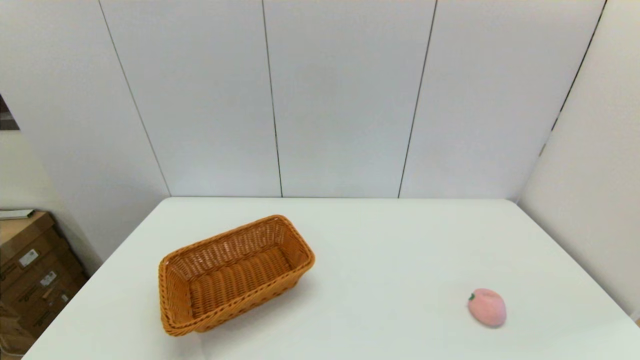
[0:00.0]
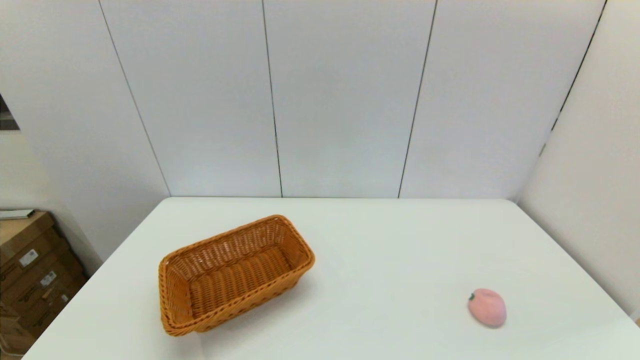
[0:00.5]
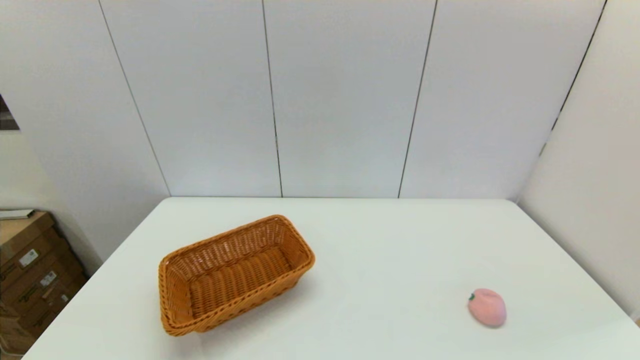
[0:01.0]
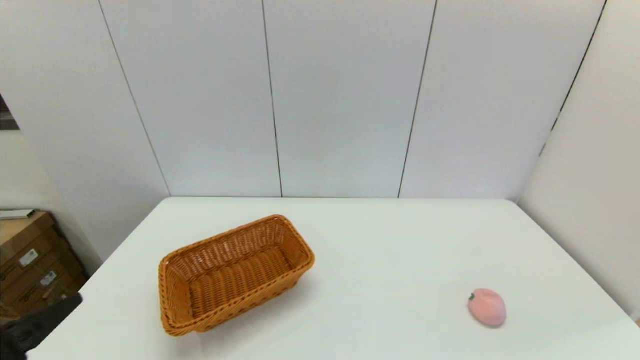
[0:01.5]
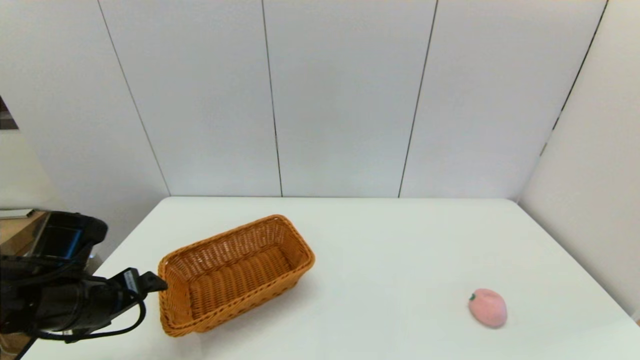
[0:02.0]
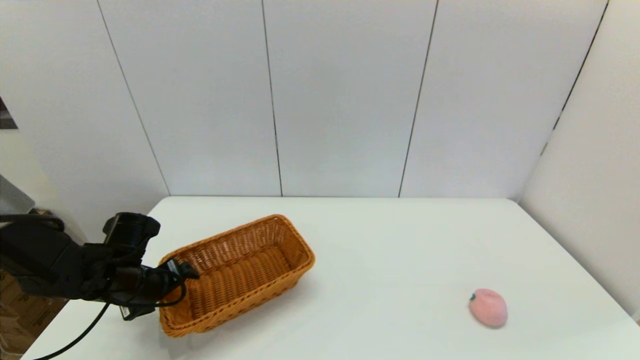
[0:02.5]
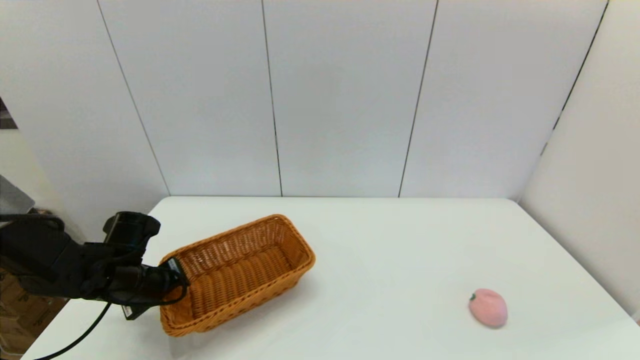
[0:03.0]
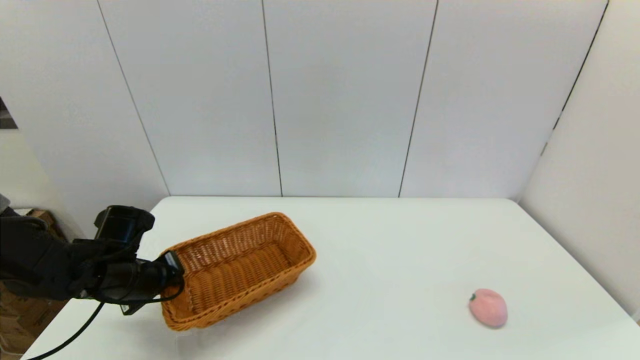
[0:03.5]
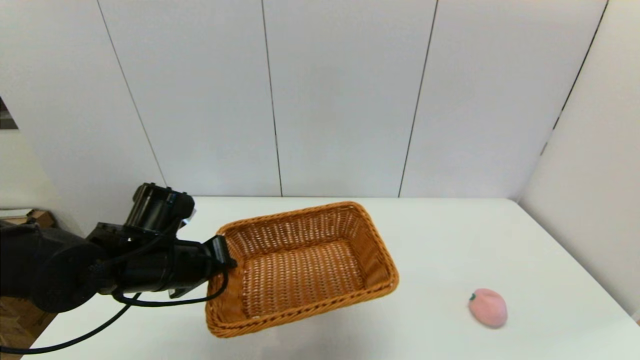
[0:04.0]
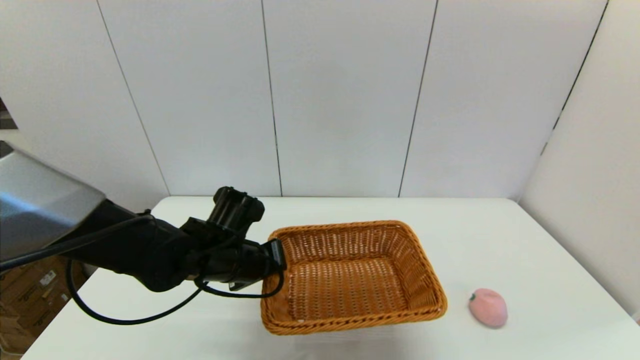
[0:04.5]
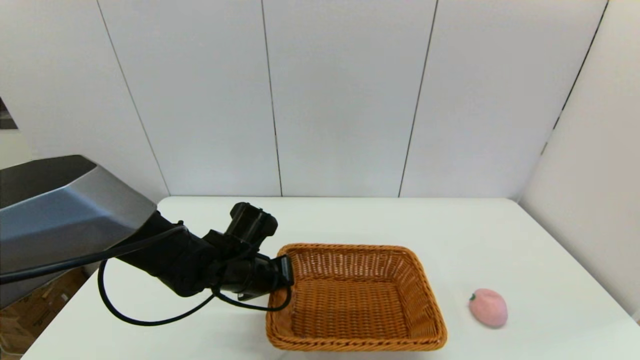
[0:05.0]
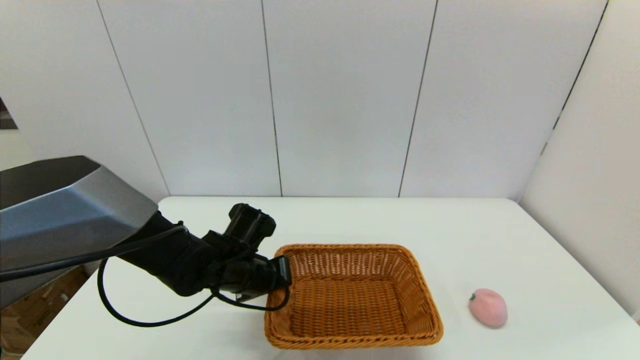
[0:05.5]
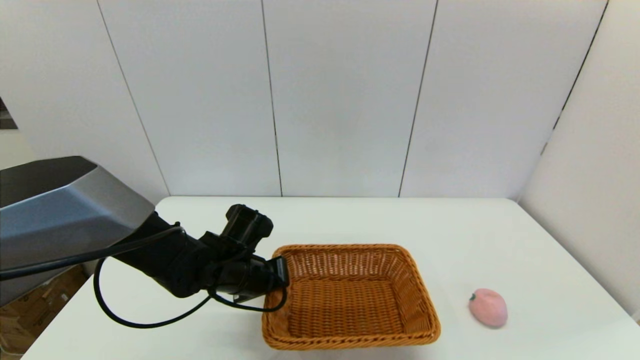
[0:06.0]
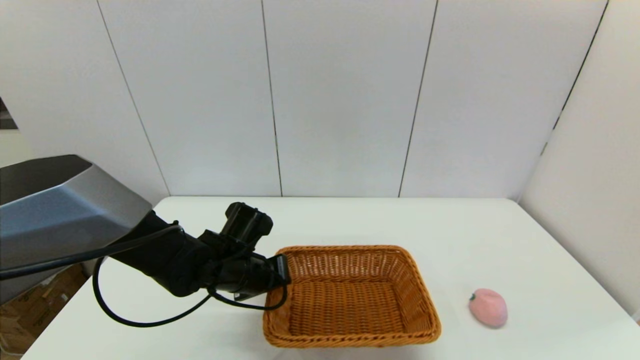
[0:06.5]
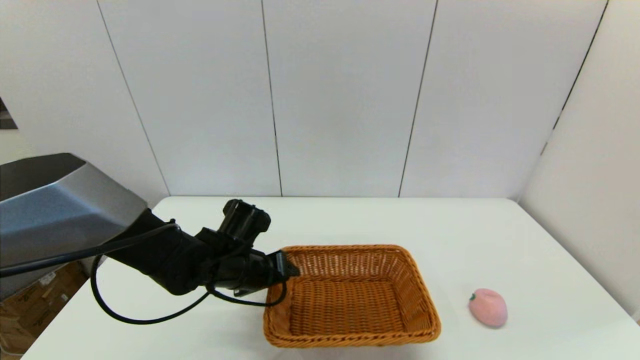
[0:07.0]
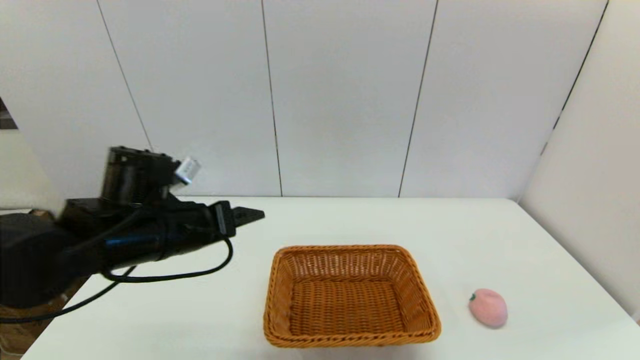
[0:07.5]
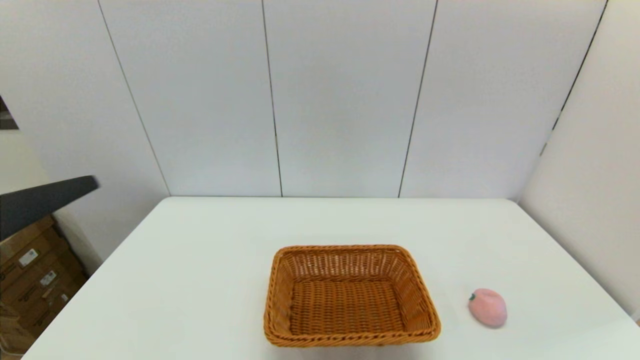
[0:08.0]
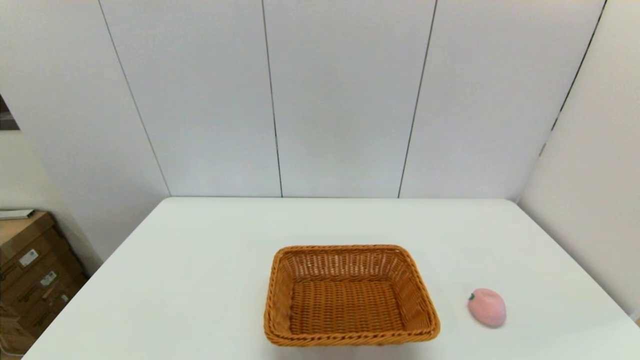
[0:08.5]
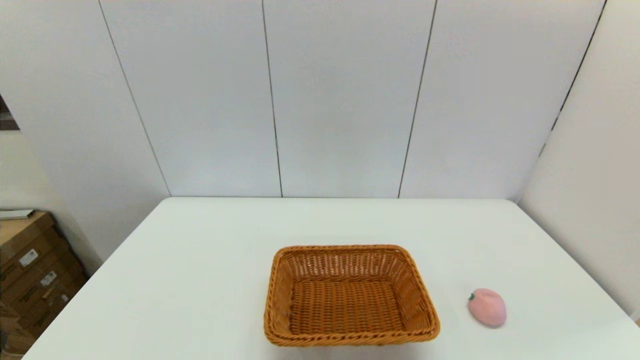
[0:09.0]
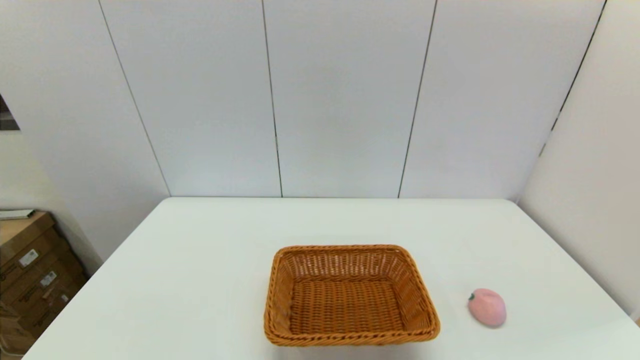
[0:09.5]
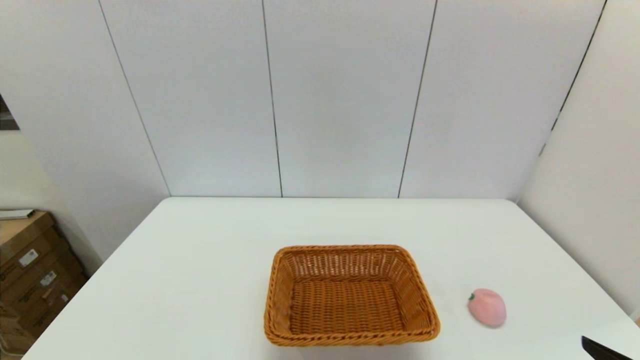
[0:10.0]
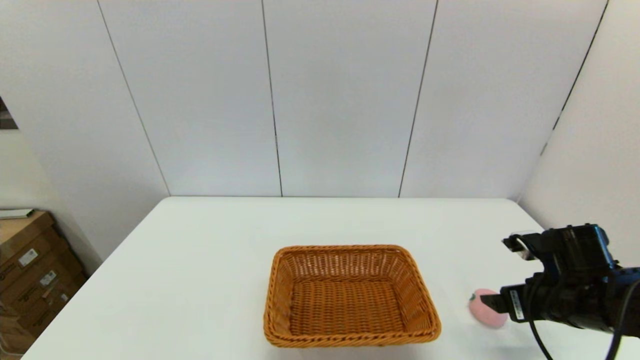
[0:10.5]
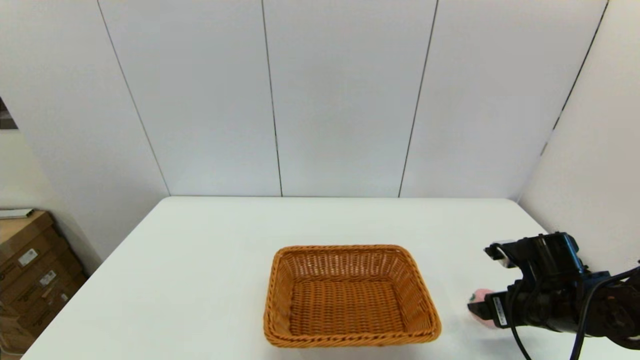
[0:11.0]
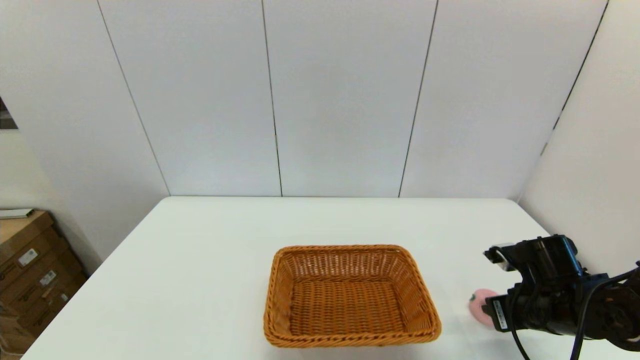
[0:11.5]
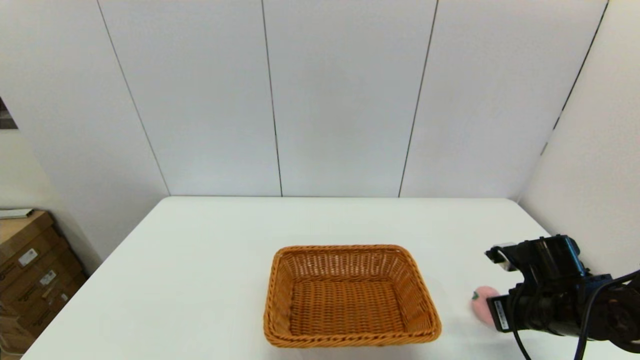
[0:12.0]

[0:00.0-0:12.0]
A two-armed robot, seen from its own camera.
Step, 0:00.0 to 0:03.0: Grasp the light basket with the left gripper.
Step, 0:03.5 to 0:06.5: Place the light basket on the middle of the table with the left gripper.
Step, 0:07.0 to 0:11.5: Grasp the peach with the right gripper.
0:00.0 to 0:02.0: The left gripper moves forward, some 25 cm.
0:02.0 to 0:04.0: The left gripper is displaced to the right by roughly 10 cm, and closes.
0:04.0 to 0:06.0: The left gripper shifts approximately 10 cm downward and to the right.
0:06.0 to 0:08.0: The left gripper goes roughly 35 cm backward, upward and to the left, and opens.
0:08.0 to 0:10.0: The left gripper moves downward and backward, approximately 20 cm.
0:10.0 to 0:12.0: The right gripper is displaced forward and downward by roughly 20 cm, and closes its fingers.

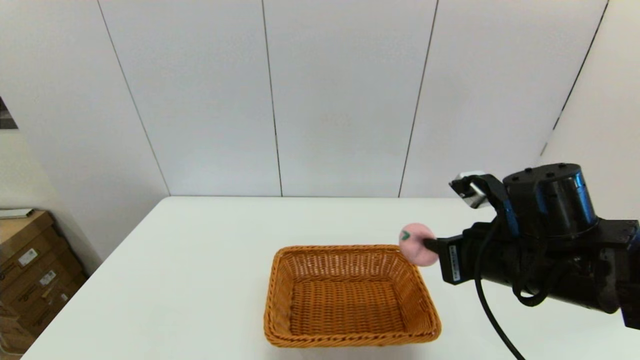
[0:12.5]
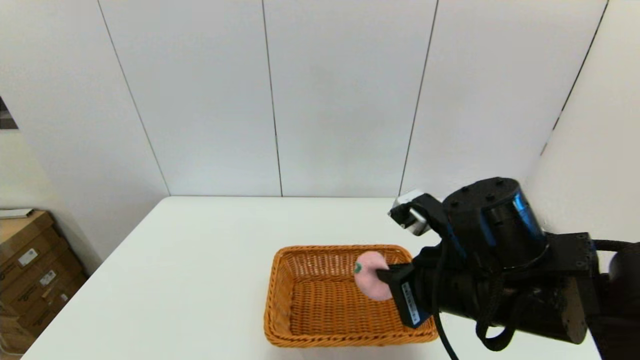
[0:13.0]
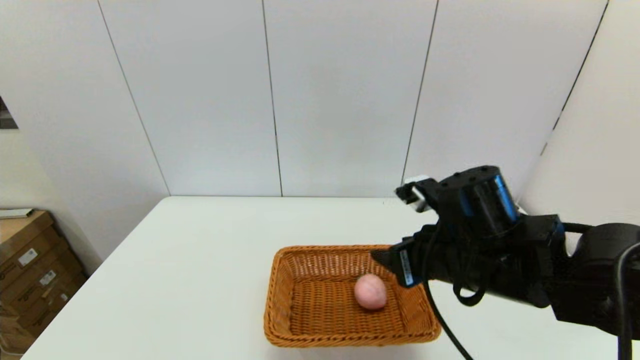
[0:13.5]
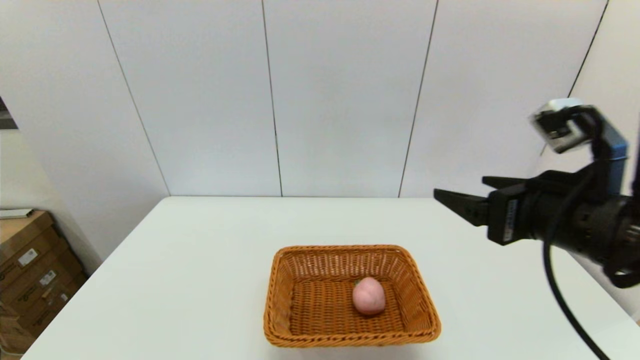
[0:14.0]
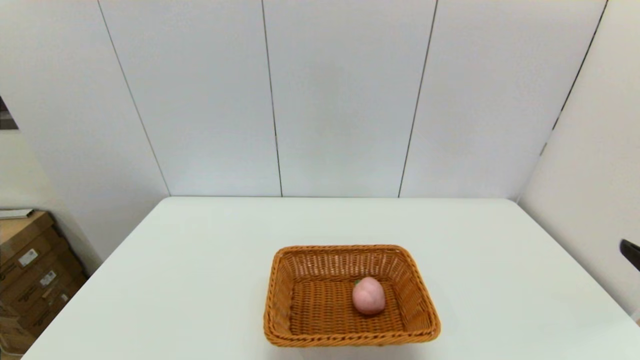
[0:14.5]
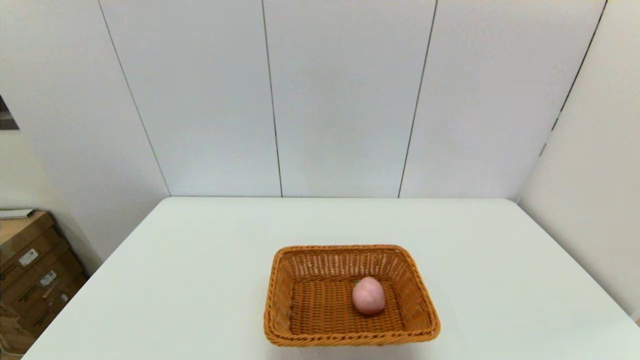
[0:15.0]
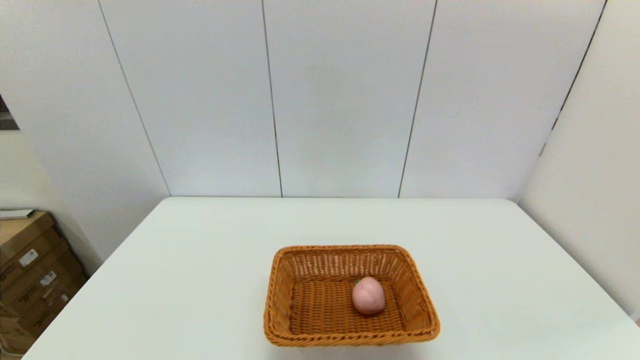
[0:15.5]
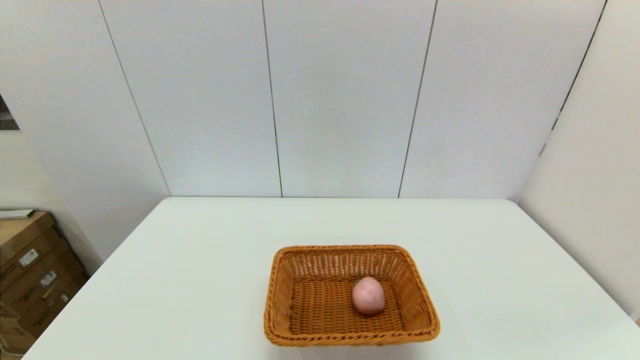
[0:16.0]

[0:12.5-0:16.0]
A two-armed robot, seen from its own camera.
0:12.5 to 0:14.5: The right gripper is displaced backward and to the right by about 20 cm, and opens.

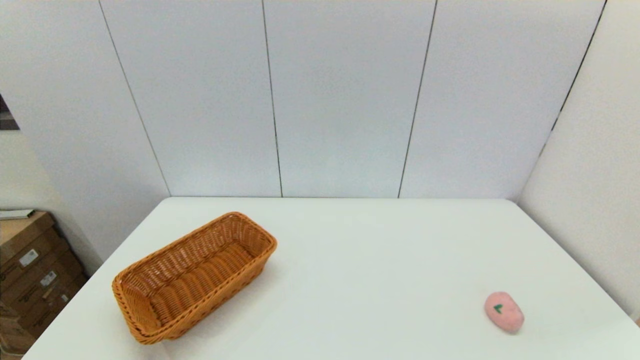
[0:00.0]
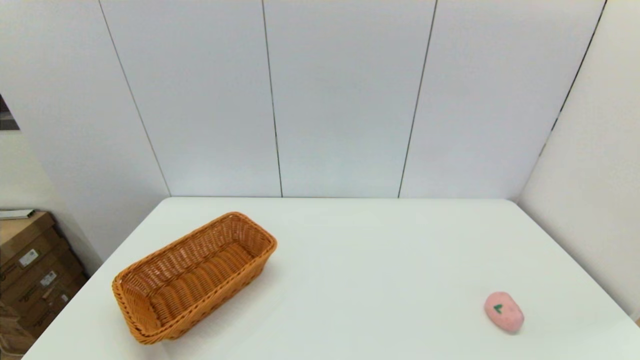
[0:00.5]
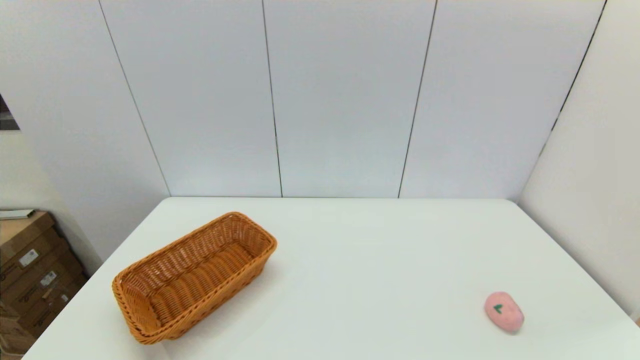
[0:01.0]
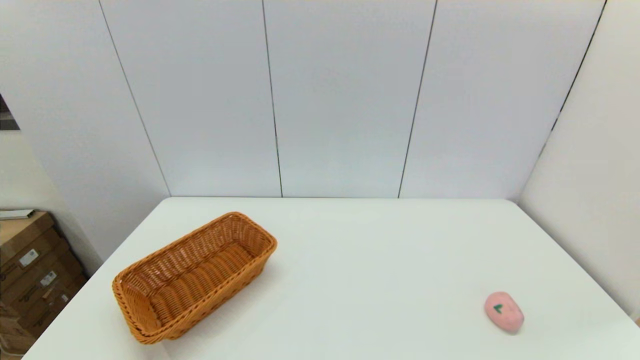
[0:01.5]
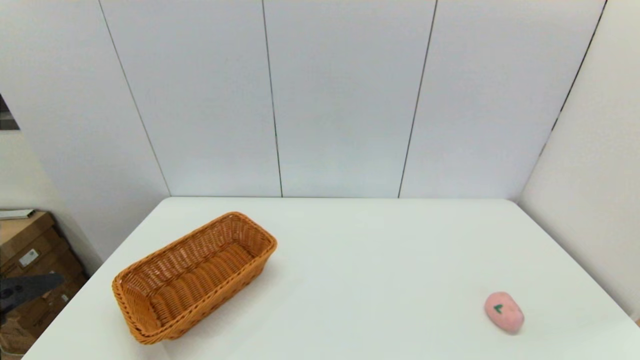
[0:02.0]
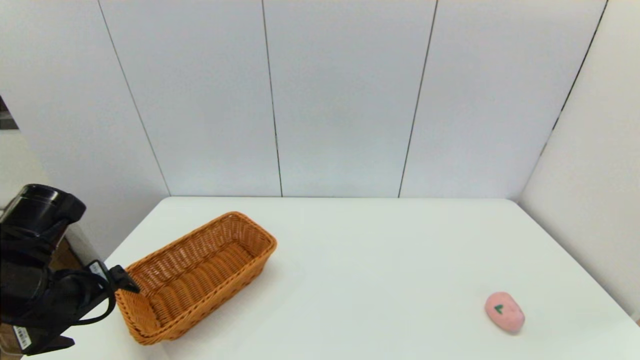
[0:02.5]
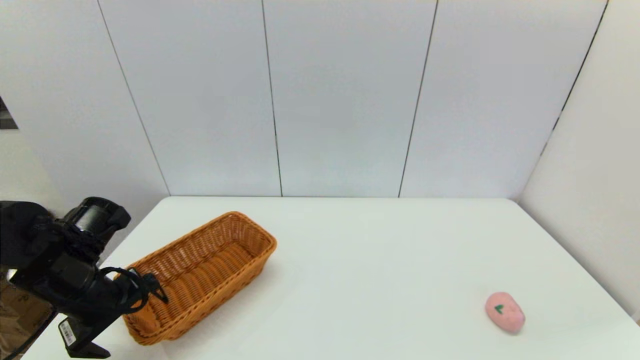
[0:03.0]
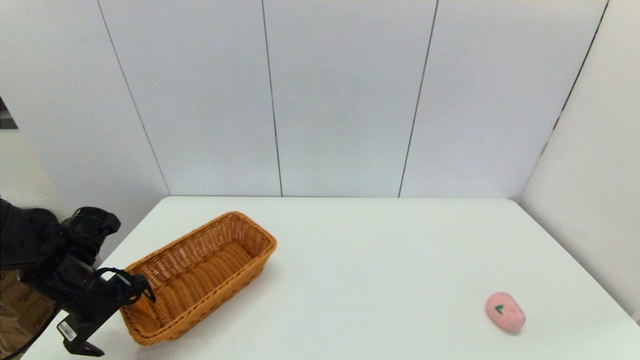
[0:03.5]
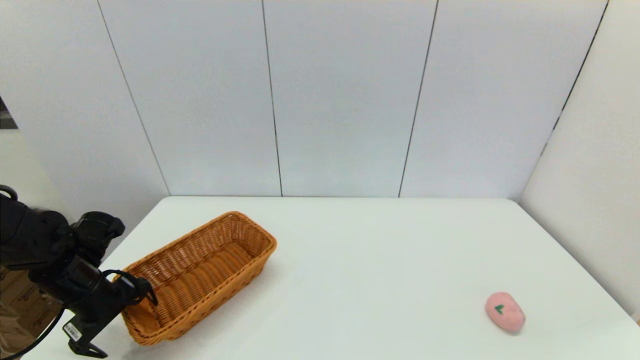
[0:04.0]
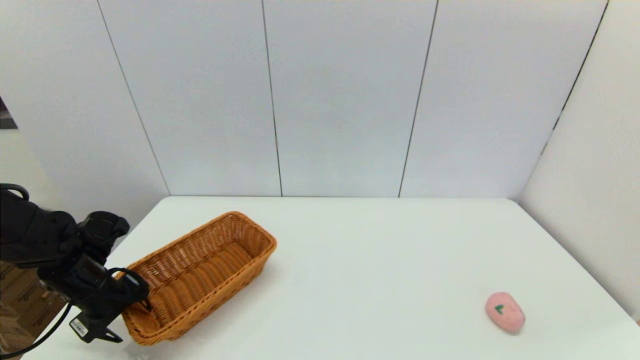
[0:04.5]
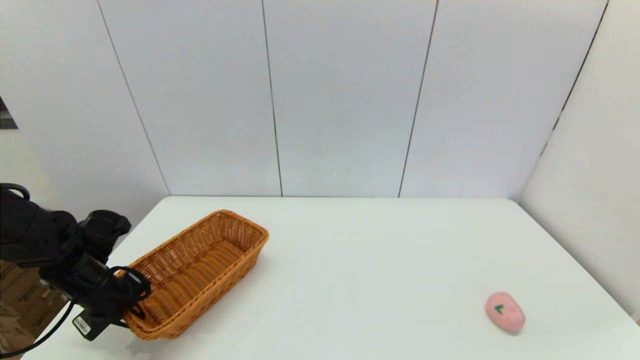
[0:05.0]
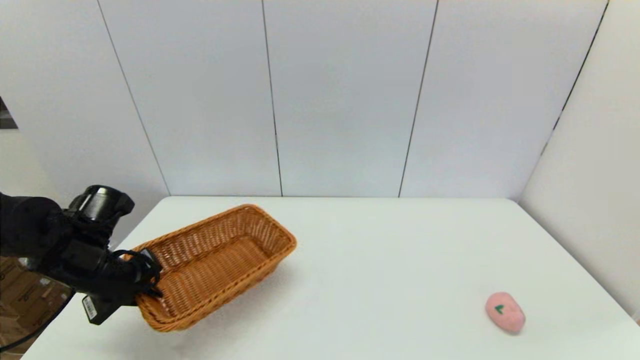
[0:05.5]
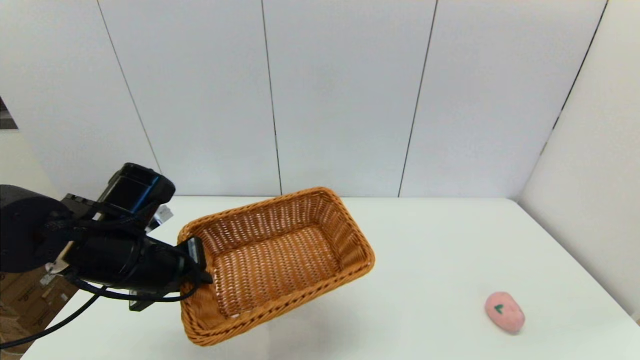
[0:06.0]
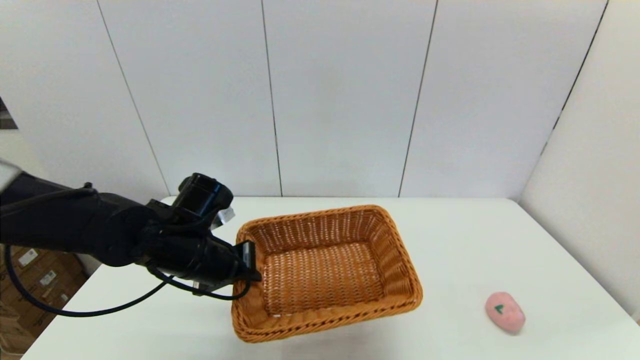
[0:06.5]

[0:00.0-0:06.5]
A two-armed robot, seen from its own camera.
Step, 0:00.0 to 0:04.5: Grasp the light basket with the left gripper.
0:02.0 to 0:04.5: The left gripper shifts some 25 cm forward and downward, and closes.
0:04.5 to 0:06.5: The left gripper is displaced to the right by some 15 cm, and closes its fingers.
